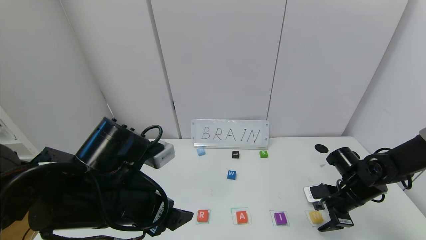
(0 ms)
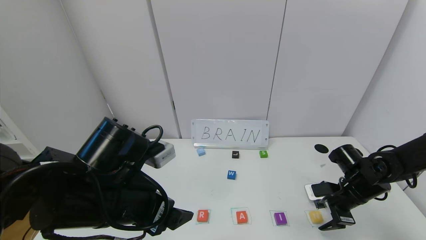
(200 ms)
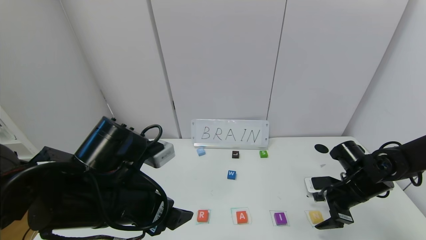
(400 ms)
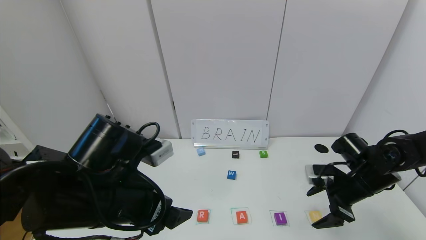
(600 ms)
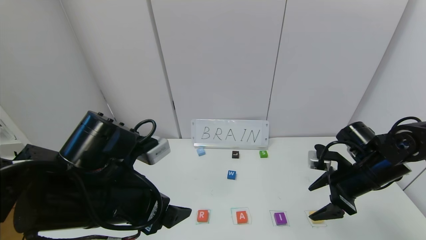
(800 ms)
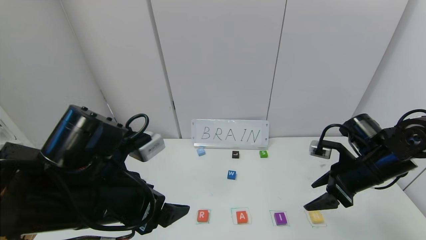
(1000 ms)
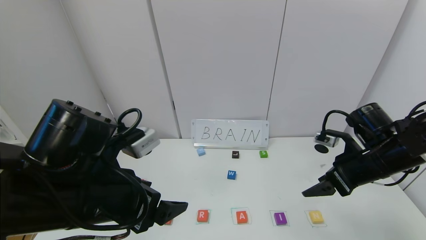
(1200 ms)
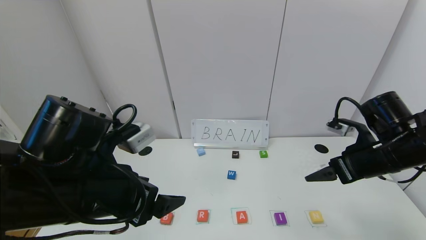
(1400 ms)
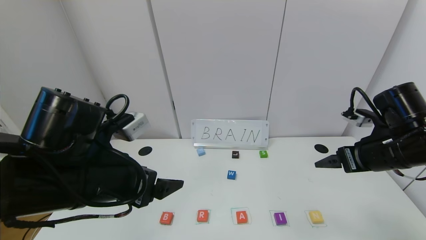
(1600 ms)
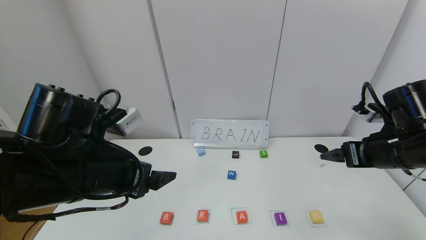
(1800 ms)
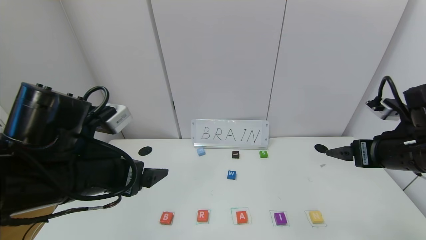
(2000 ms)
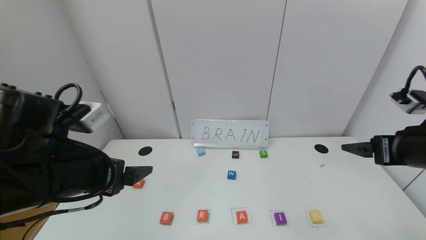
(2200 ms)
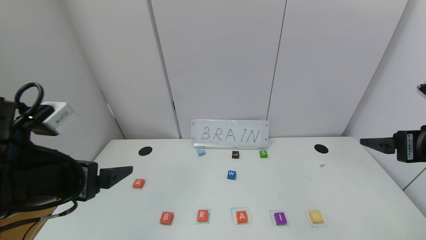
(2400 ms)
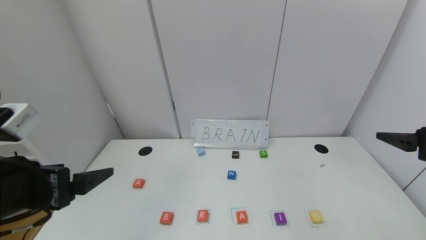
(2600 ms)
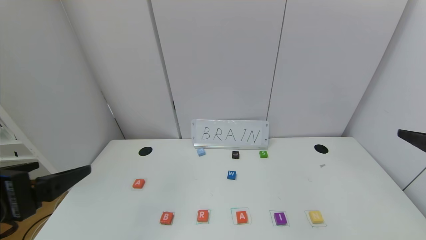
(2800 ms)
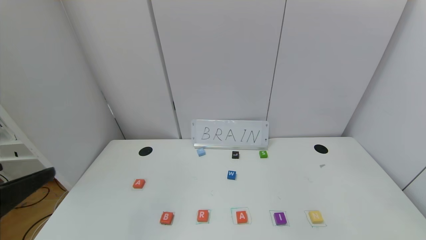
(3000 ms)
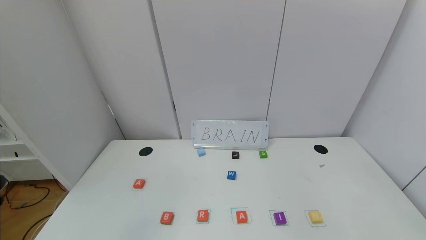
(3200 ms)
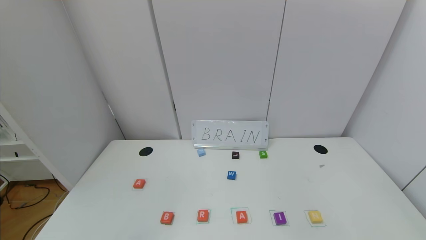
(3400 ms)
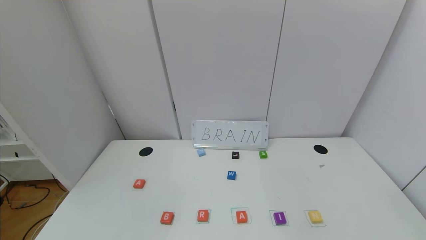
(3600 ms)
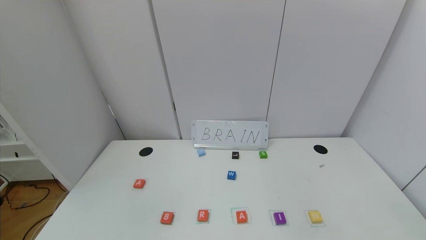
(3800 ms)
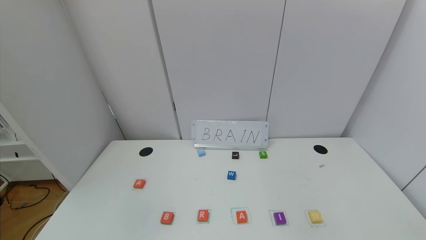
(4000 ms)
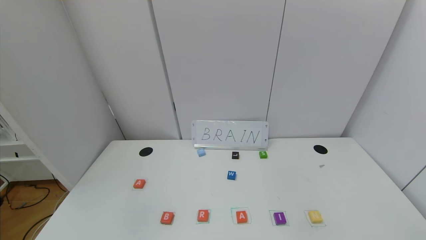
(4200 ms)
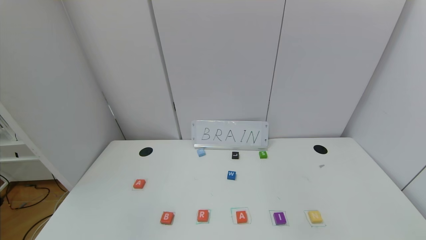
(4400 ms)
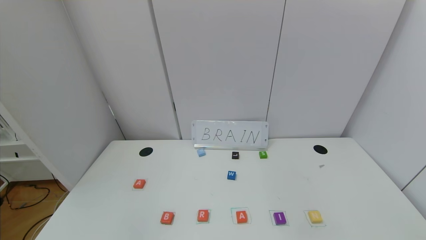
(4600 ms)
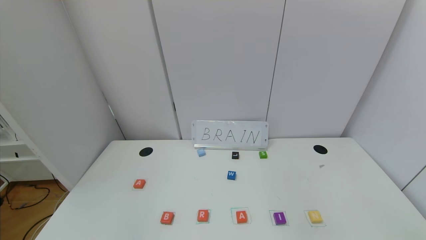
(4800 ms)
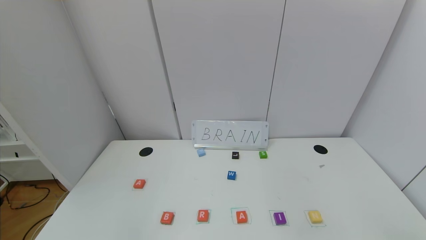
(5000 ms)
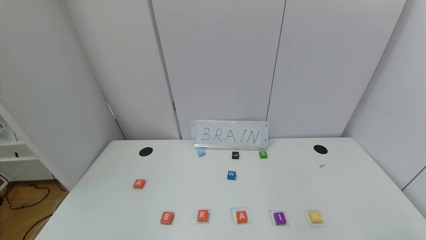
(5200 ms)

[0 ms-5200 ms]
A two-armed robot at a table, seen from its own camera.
Task of the whole recording: use the gripper to find blocks with the letters b, a, a, and i on the table and arrange them into BAAI, then find r and N and turn the arranged baai into brian.
0 ms to 1800 ms: The right gripper shifts approximately 15 cm upward.
1800 ms to 3400 ms: The right gripper shifts about 25 cm backward, while the left gripper is displaced backward and to the left by roughly 25 cm.

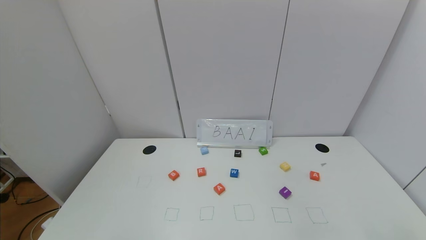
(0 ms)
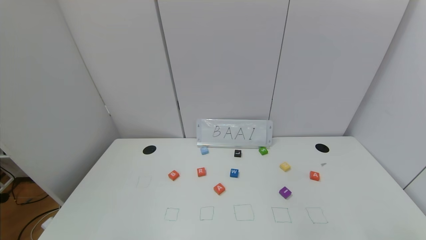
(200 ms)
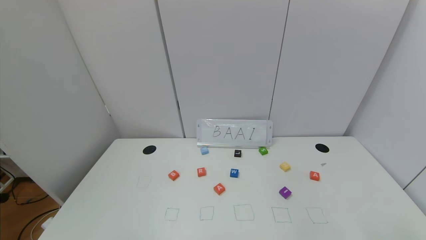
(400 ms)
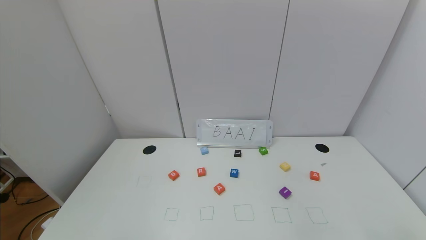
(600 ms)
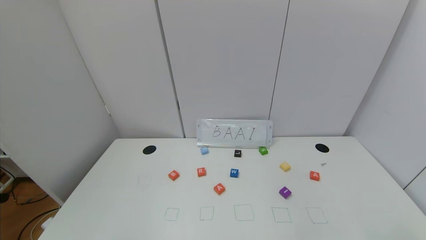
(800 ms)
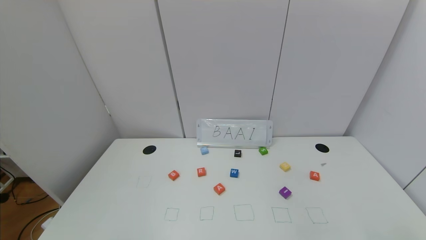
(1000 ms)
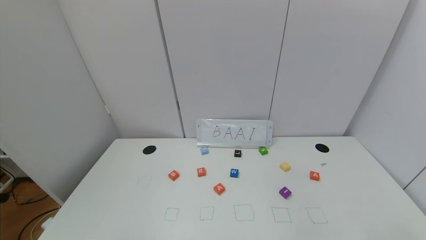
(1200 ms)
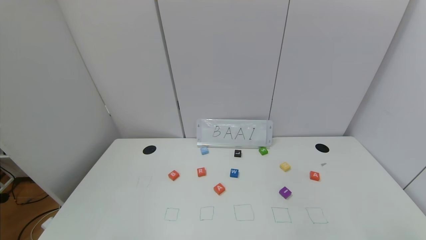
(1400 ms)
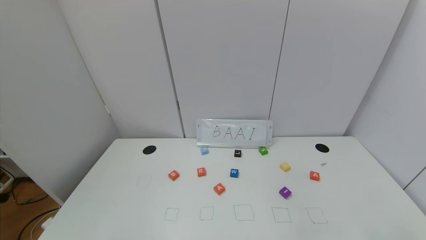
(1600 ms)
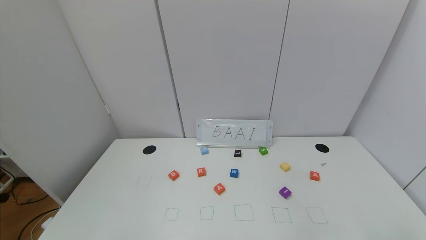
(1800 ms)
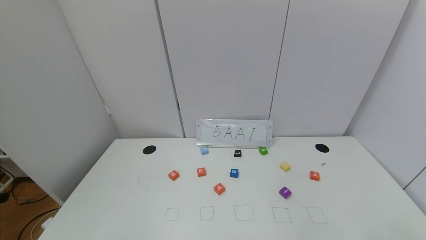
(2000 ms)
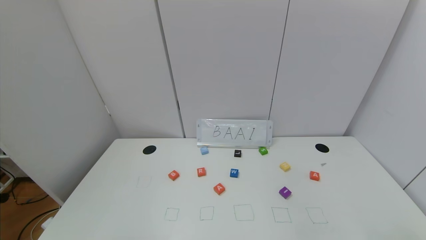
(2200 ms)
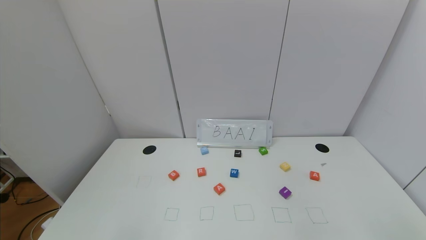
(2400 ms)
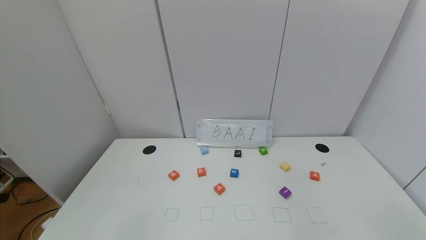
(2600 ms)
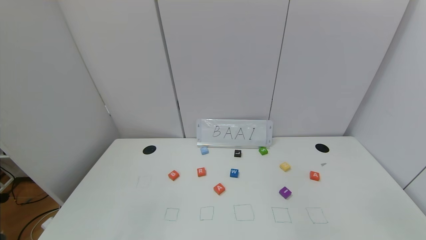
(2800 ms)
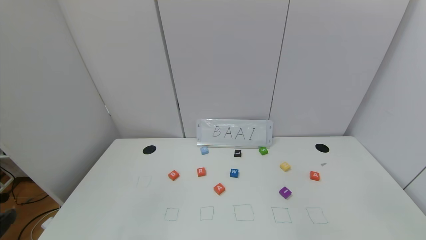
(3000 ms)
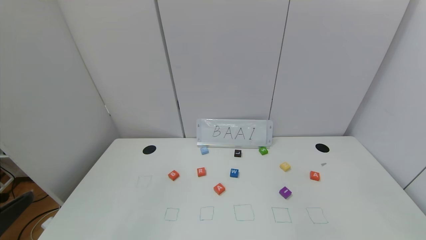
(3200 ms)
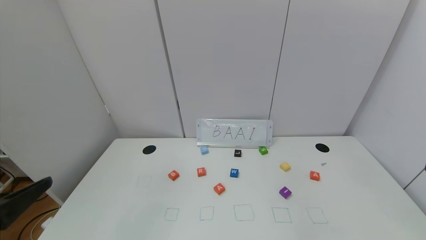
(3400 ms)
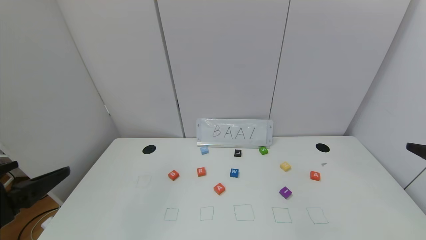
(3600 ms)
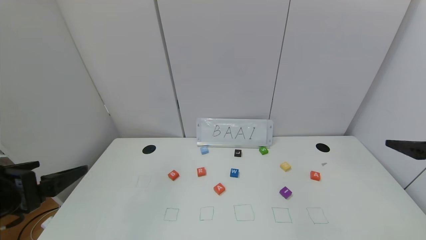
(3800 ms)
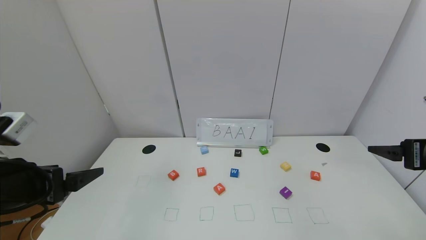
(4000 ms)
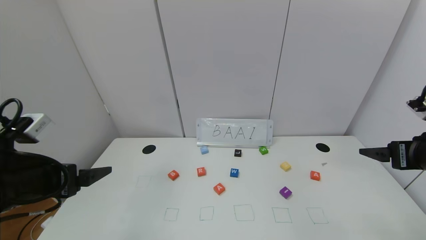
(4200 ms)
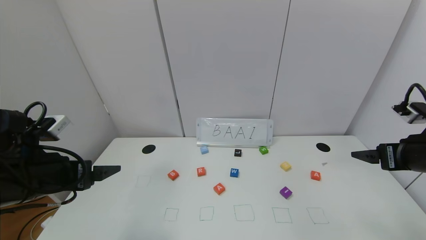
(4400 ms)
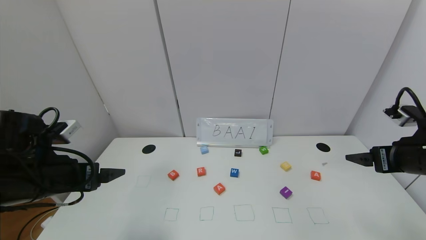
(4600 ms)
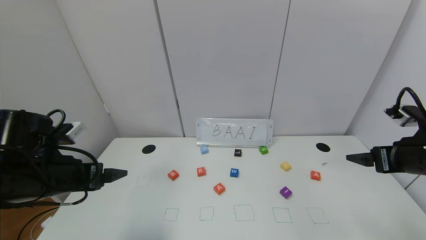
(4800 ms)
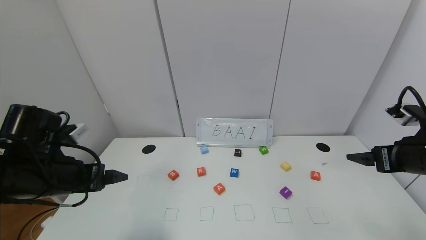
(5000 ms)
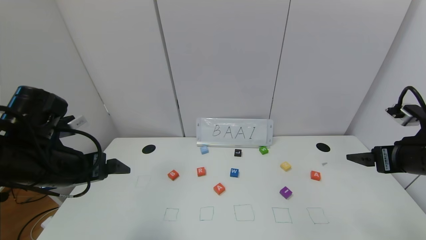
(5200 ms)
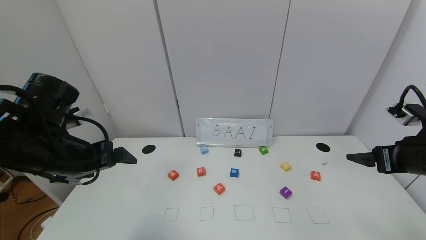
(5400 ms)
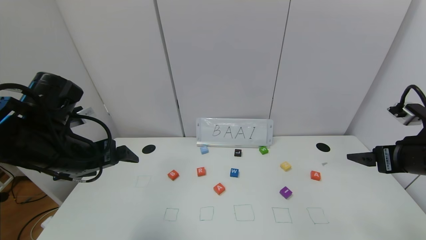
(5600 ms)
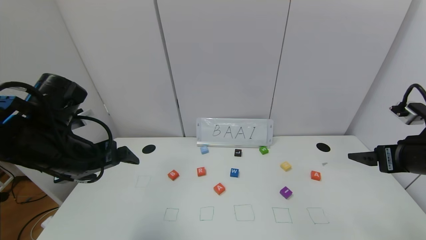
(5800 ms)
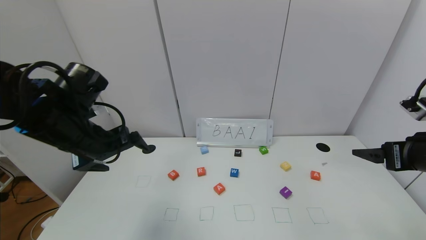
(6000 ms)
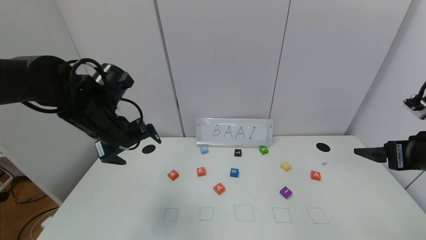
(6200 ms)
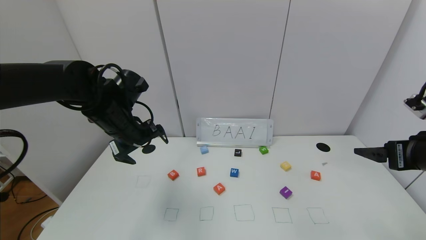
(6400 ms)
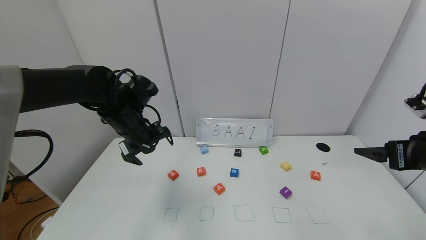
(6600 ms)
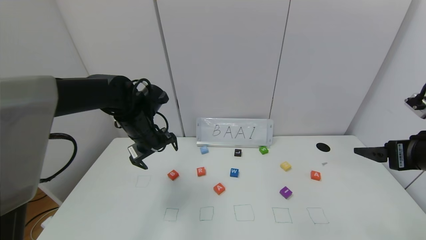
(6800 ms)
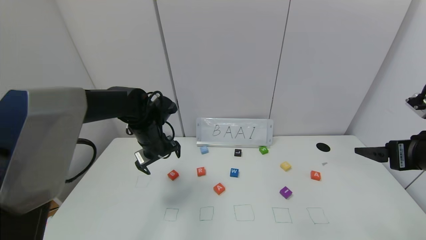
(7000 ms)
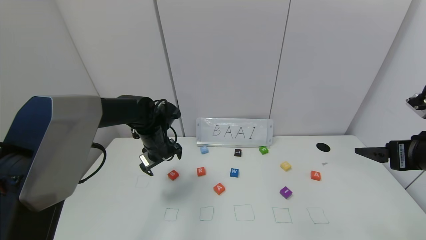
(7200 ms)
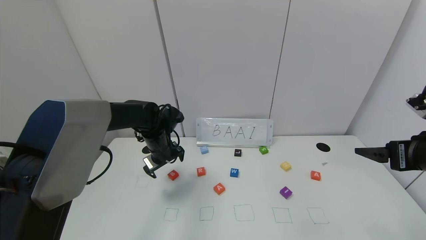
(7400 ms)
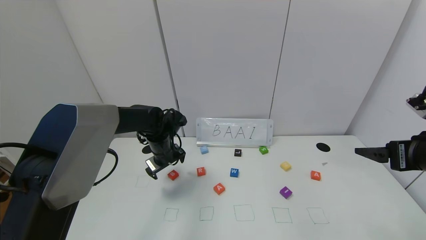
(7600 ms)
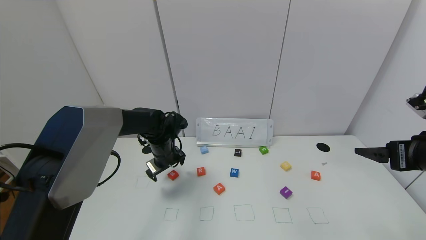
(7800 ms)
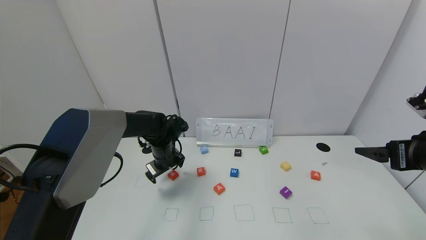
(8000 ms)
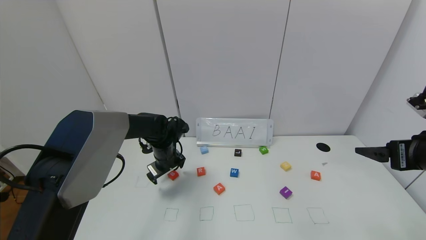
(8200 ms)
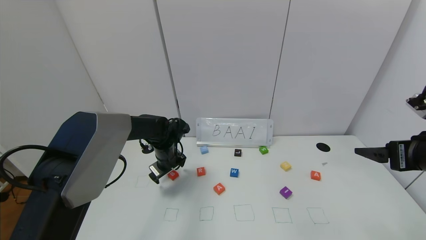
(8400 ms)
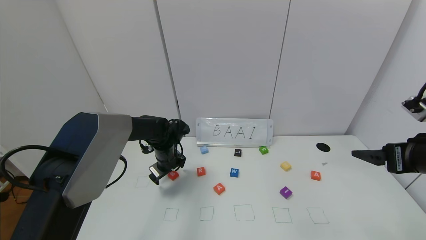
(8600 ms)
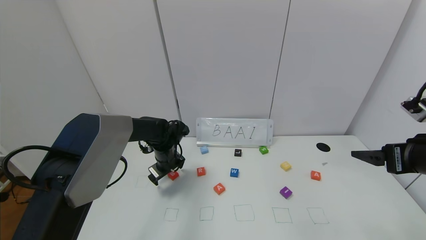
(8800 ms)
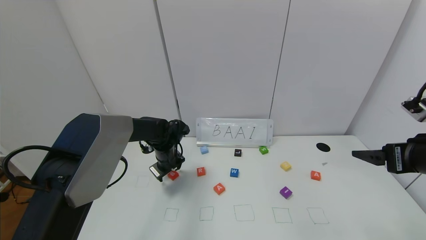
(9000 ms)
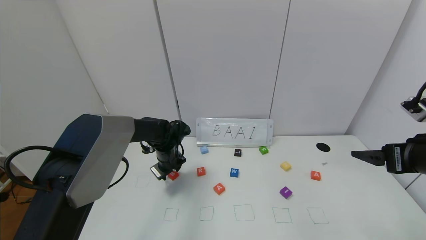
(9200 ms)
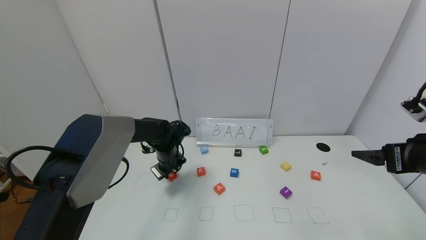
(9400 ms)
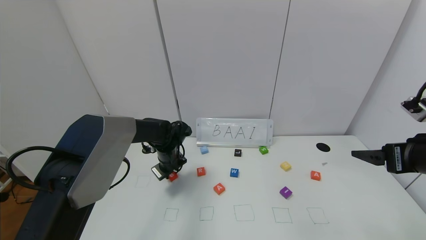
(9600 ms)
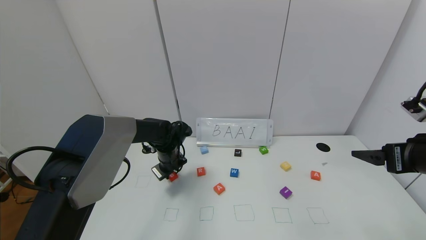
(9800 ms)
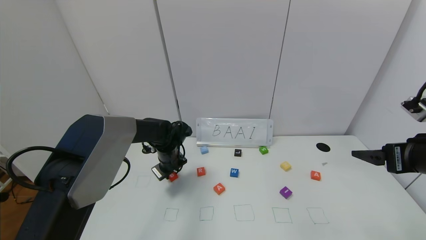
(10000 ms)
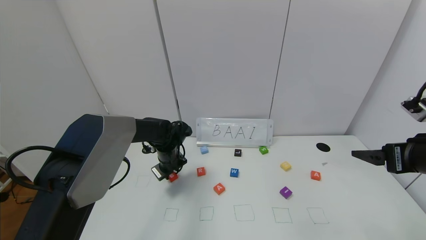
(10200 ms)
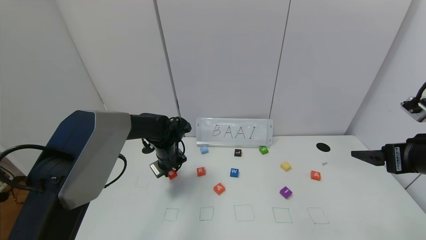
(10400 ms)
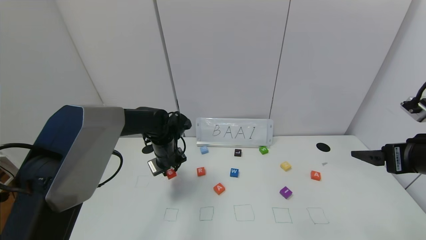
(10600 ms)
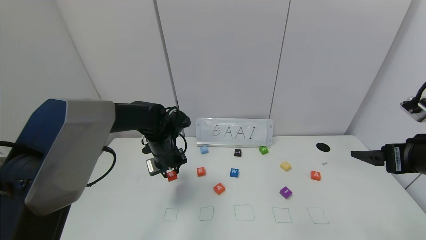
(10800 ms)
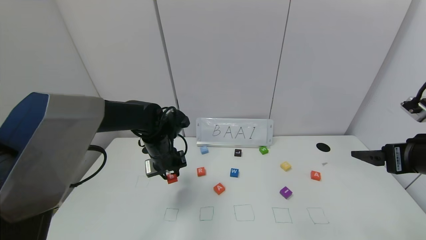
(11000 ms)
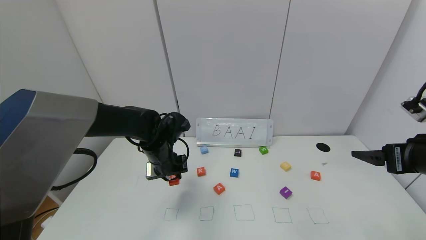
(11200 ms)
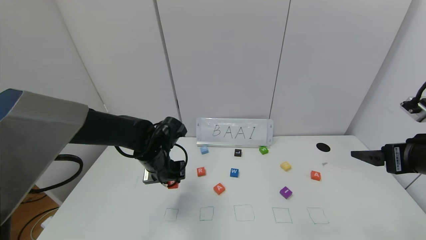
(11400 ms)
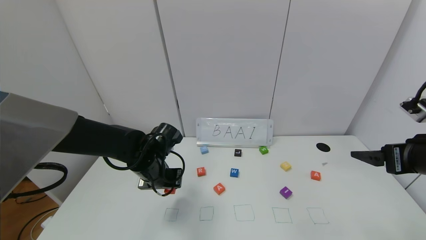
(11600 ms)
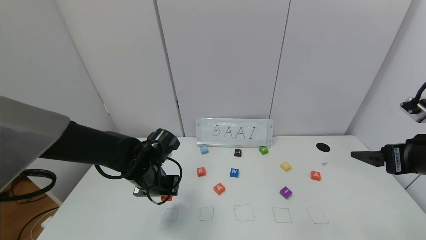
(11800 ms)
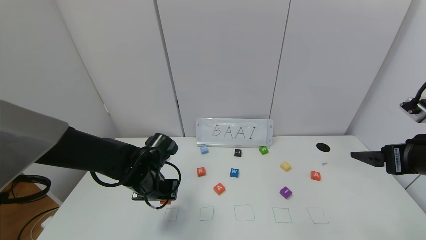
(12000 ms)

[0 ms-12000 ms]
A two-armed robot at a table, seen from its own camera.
Task of the whole recording: use the gripper to find blocks with the letters b, a, a, and i on the table and arrange them into BAAI, then find r and N and turn the arranged baai into brian.
0 ms to 1600 ms: Both grippers stay about where they are.
3000 ms to 4400 ms: The two grippers go approximately 20 cm forward.
4400 ms to 6000 ms: The left gripper shifts some 10 cm forward.
6000 ms to 7600 ms: The left gripper moves forward, downward and to the right, roughly 20 cm.
7600 ms to 9000 ms: The left gripper closes.
9000 ms to 10400 ms: The left gripper closes its fingers.
10400 ms to 12000 ms: The left gripper is displaced backward by about 10 cm.
